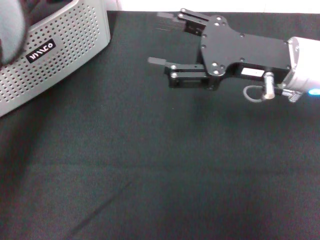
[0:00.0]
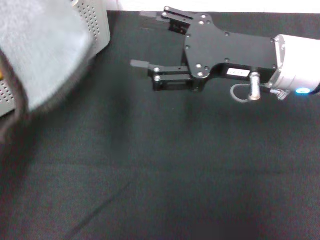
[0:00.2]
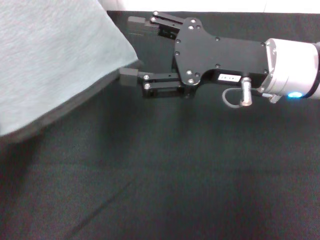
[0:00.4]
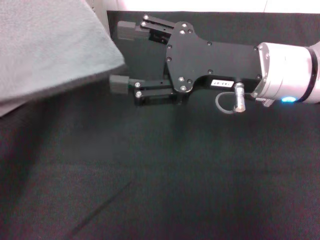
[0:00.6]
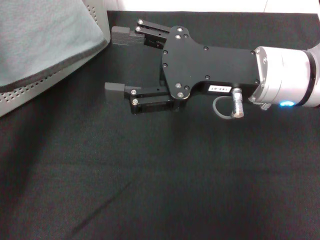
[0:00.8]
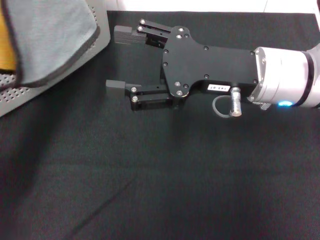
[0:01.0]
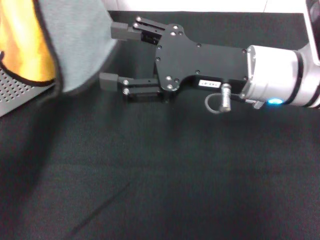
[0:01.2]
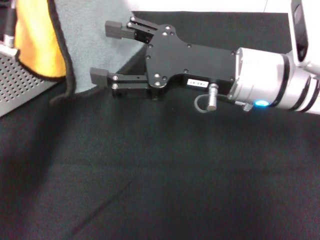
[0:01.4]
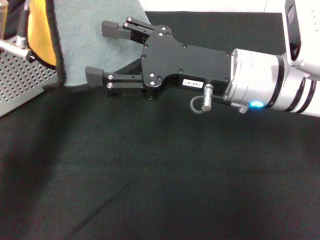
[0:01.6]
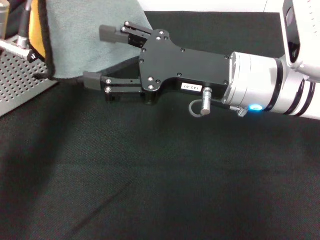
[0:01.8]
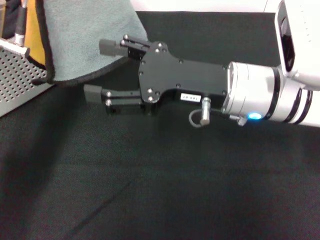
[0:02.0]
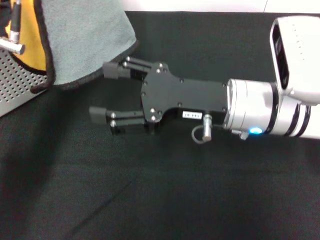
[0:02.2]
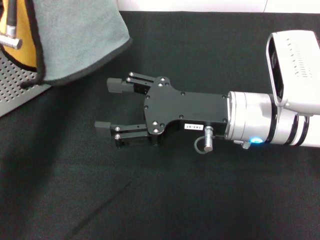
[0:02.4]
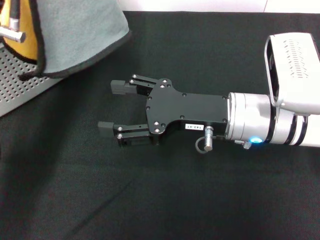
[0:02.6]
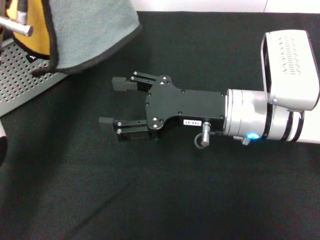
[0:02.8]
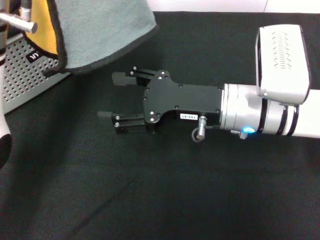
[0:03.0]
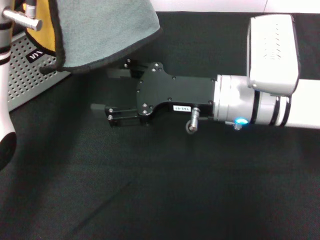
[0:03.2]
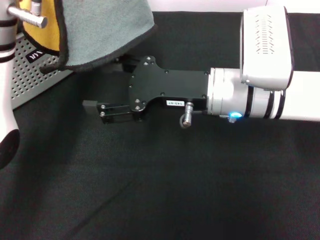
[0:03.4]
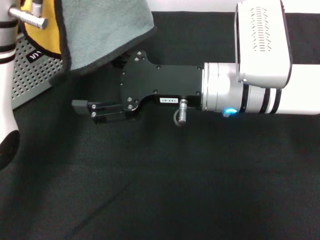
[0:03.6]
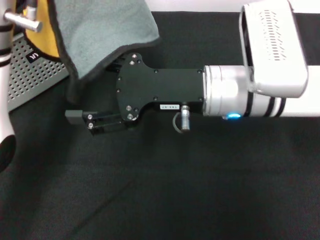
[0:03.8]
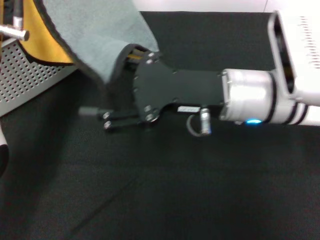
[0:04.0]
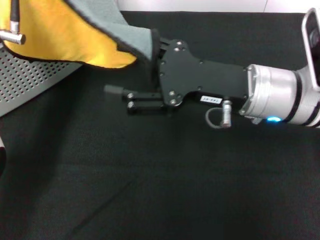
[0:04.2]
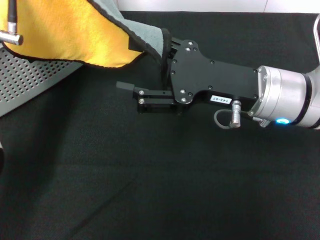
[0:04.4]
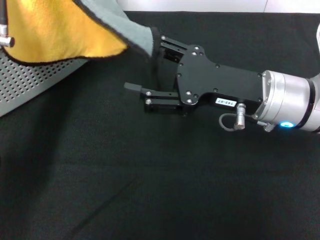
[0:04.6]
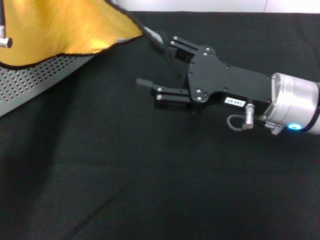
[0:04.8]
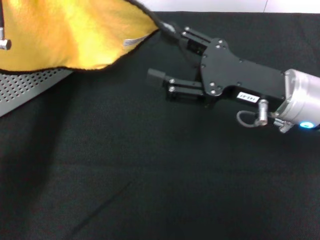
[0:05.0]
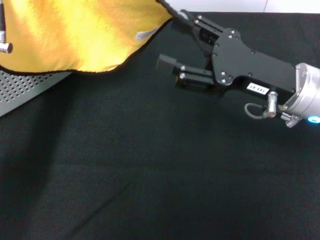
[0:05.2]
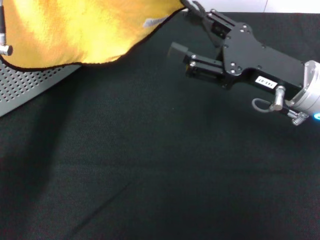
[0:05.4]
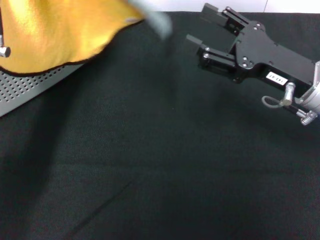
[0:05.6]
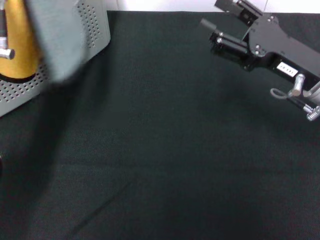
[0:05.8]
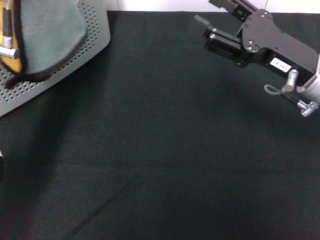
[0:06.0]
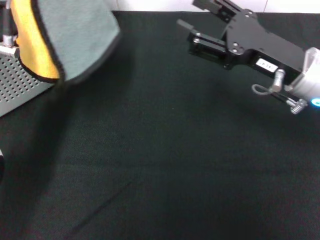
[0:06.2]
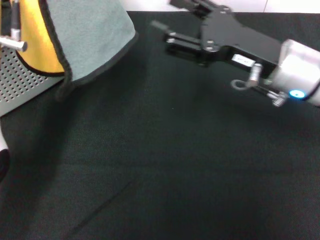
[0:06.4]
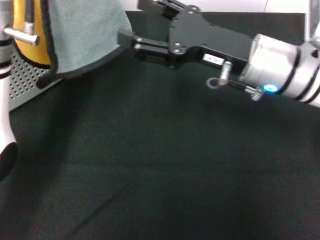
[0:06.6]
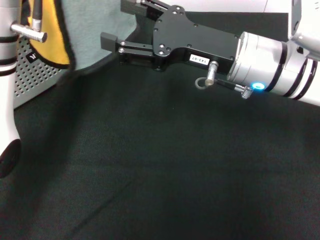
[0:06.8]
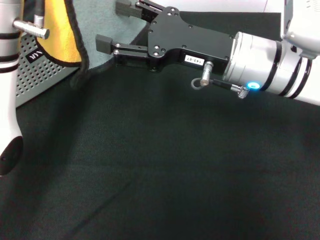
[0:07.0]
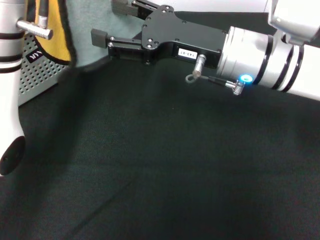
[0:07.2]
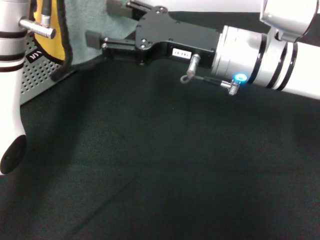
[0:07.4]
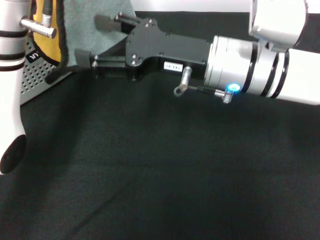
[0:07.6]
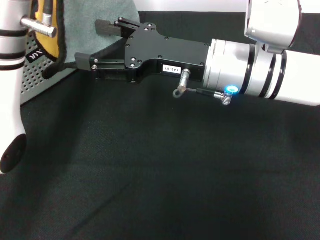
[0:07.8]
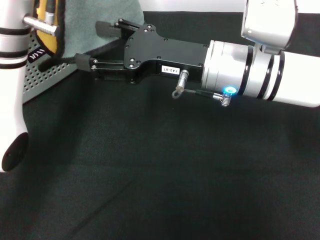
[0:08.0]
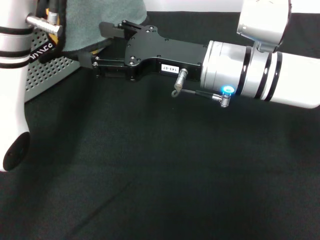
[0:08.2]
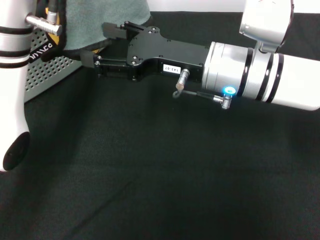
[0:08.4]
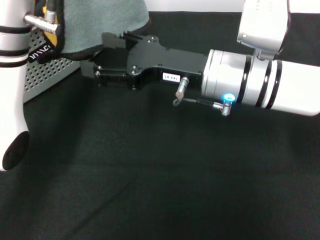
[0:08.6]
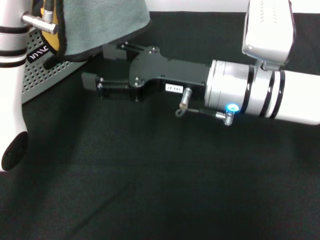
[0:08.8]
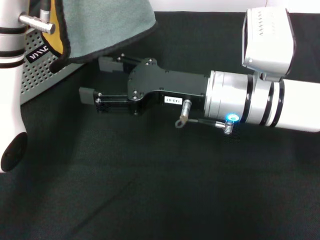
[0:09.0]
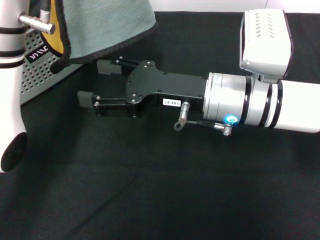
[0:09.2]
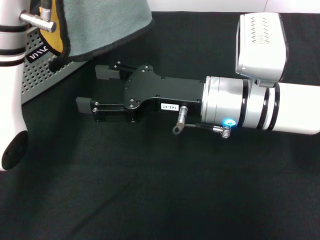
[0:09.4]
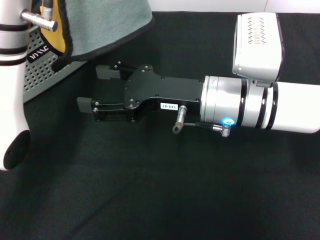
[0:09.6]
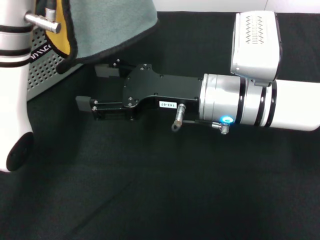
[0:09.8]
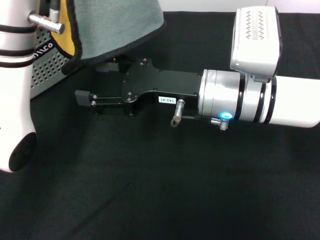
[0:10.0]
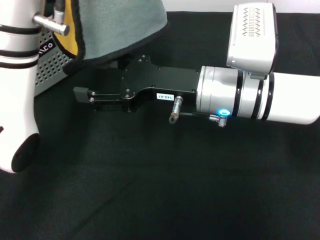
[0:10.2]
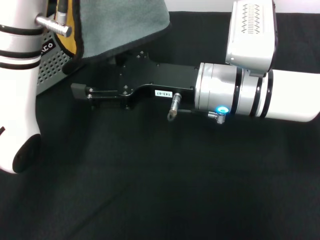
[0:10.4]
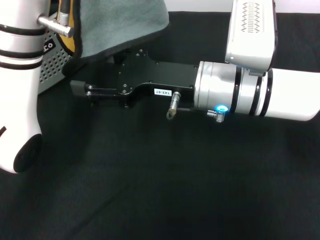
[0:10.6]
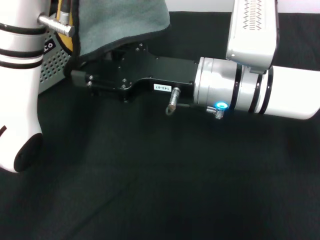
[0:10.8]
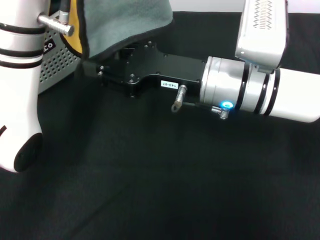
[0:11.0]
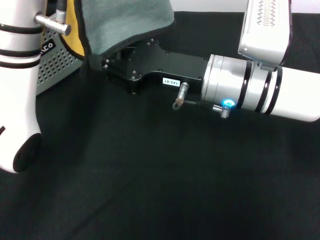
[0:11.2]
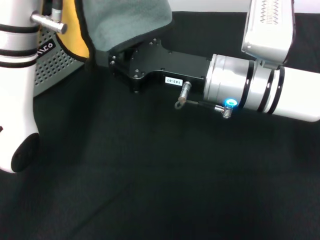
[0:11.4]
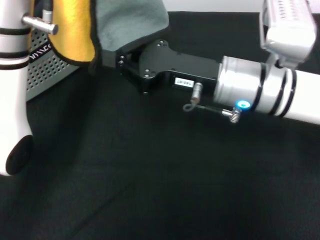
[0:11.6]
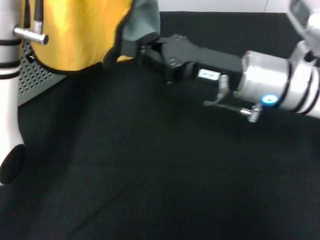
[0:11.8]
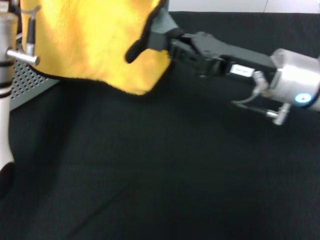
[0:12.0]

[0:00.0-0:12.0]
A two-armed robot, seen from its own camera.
Task of the whole recording: pick up the towel from the storage box and lay it flat on the black tablecloth.
Step, 0:00.0 to 0:11.4: Spread the towel flat with the left gripper.
0:00.0 to 0:01.6: The right gripper moves to the left, some 5 cm. The left gripper goes approximately 5 cm downward.
0:04.4 to 0:06.0: The right gripper travels to the right by about 5 cm.
0:06.0 to 0:07.6: The right gripper travels to the left by roughly 10 cm.
0:10.4 to 0:12.0: The left gripper changes place by about 5 cm. Meanwhile the right gripper goes some 10 cm to the right, and closes.

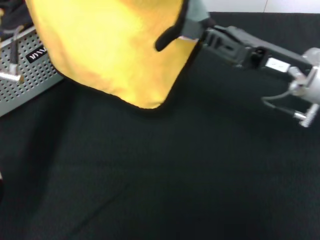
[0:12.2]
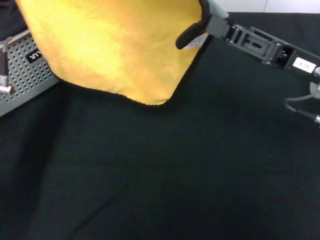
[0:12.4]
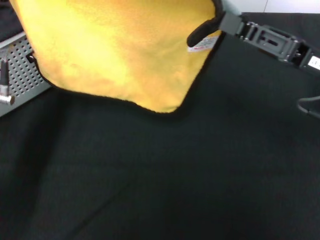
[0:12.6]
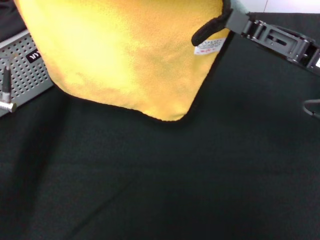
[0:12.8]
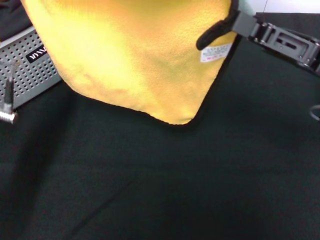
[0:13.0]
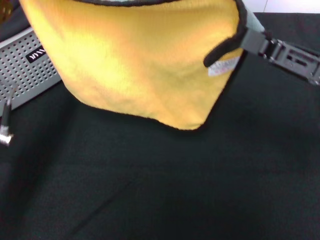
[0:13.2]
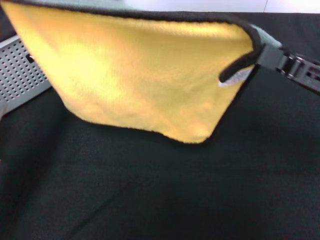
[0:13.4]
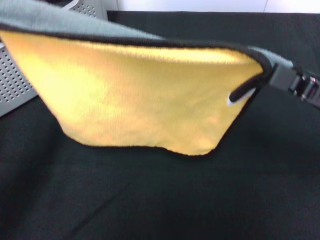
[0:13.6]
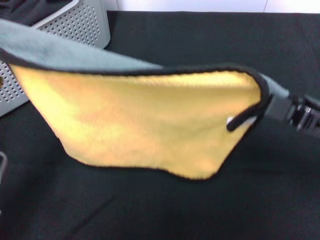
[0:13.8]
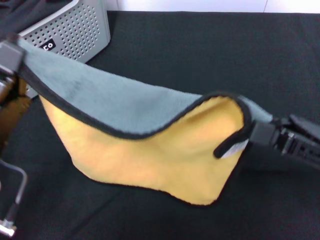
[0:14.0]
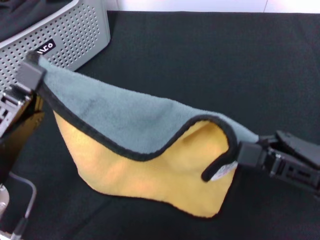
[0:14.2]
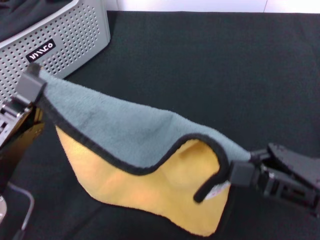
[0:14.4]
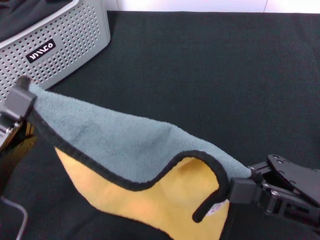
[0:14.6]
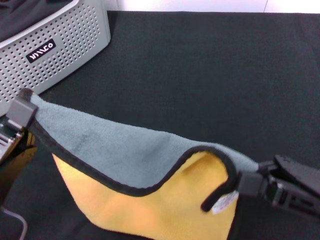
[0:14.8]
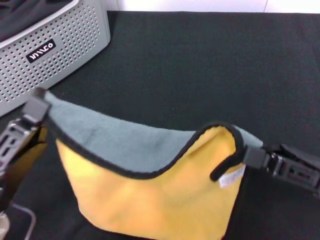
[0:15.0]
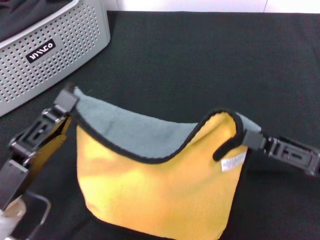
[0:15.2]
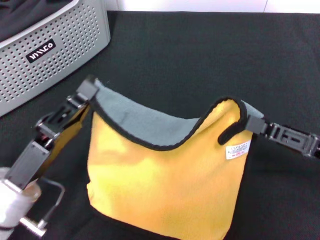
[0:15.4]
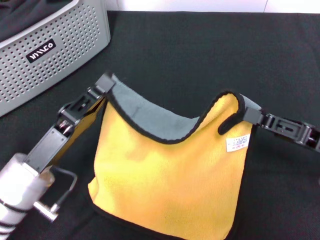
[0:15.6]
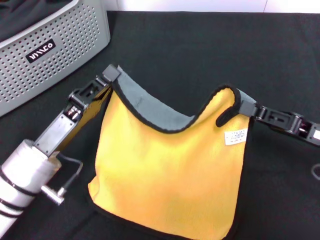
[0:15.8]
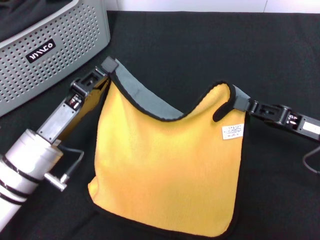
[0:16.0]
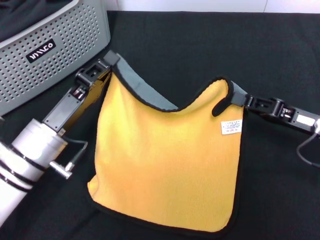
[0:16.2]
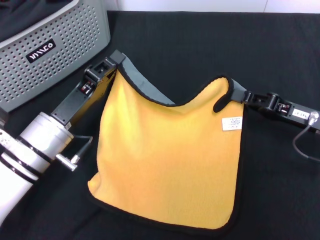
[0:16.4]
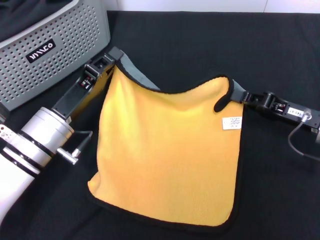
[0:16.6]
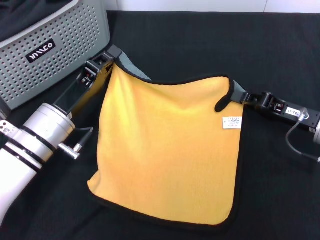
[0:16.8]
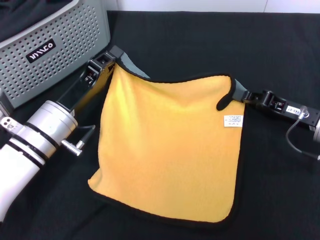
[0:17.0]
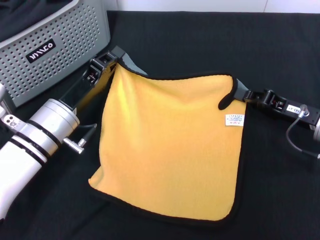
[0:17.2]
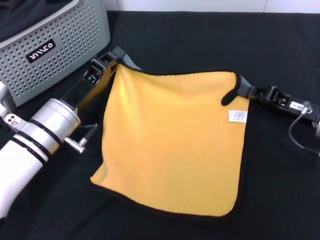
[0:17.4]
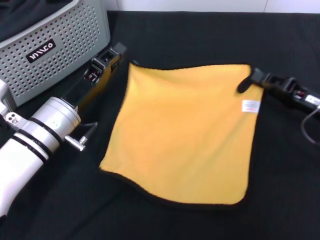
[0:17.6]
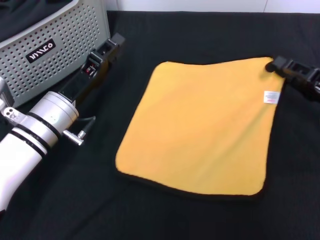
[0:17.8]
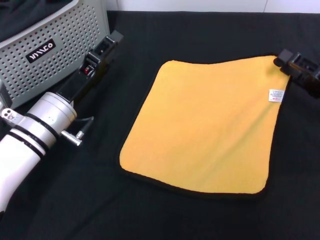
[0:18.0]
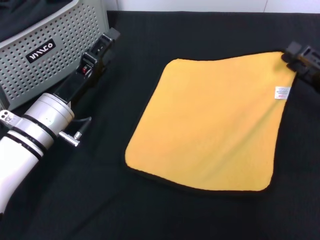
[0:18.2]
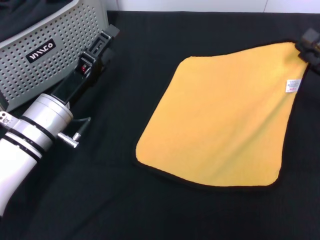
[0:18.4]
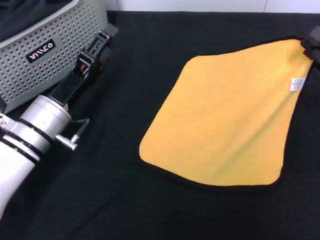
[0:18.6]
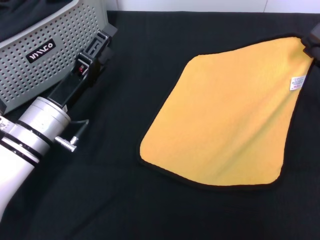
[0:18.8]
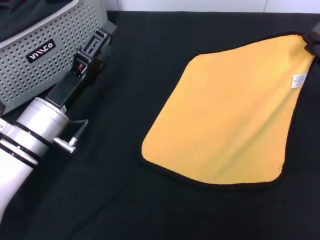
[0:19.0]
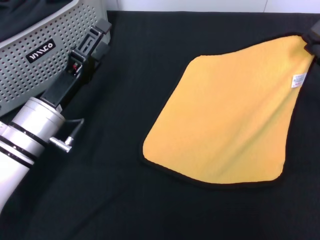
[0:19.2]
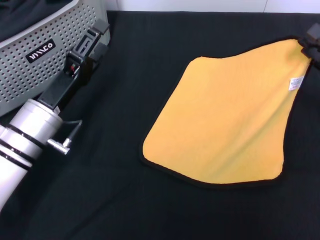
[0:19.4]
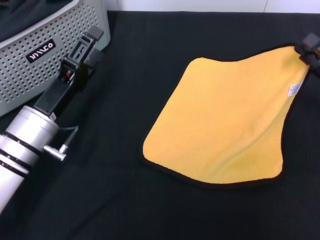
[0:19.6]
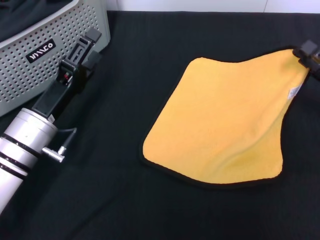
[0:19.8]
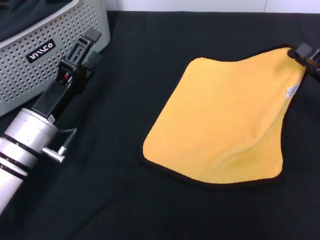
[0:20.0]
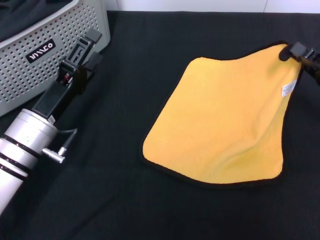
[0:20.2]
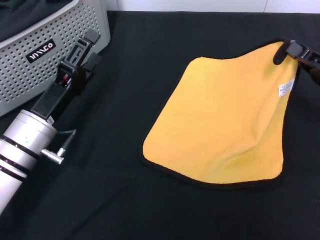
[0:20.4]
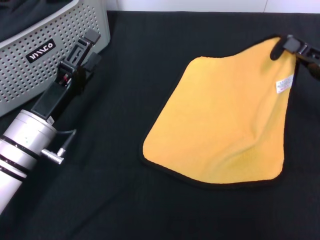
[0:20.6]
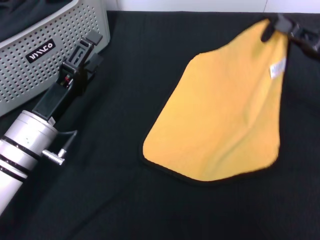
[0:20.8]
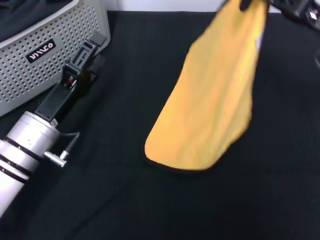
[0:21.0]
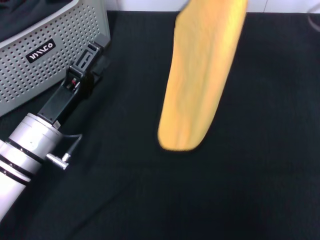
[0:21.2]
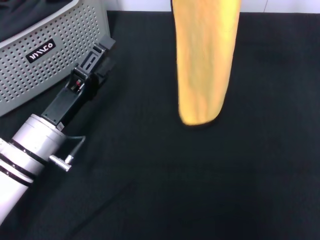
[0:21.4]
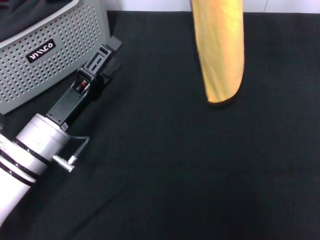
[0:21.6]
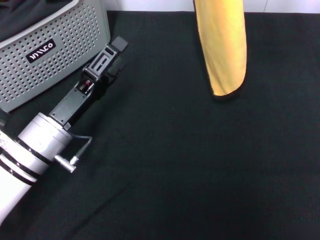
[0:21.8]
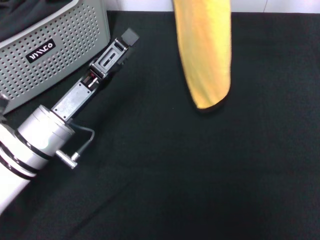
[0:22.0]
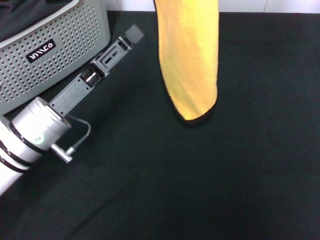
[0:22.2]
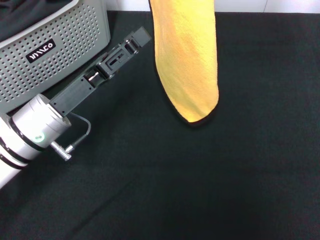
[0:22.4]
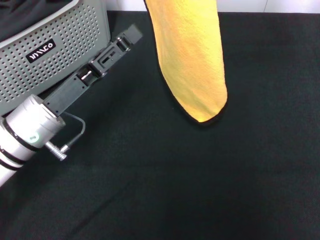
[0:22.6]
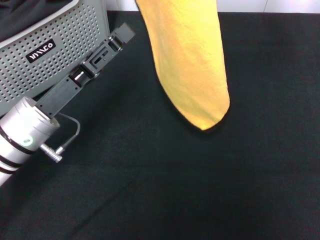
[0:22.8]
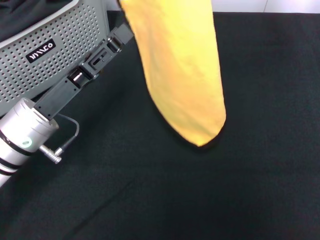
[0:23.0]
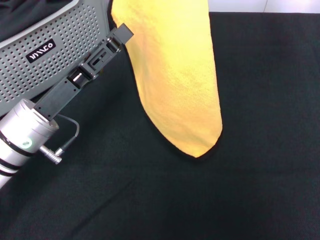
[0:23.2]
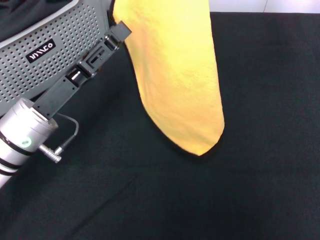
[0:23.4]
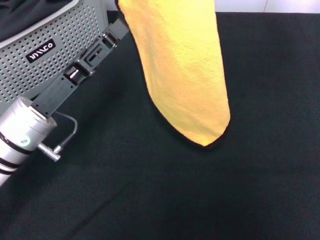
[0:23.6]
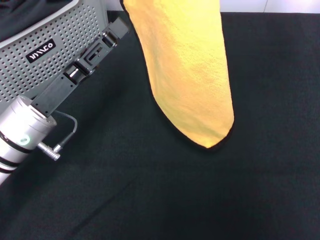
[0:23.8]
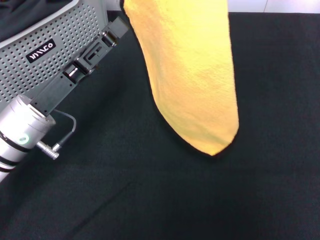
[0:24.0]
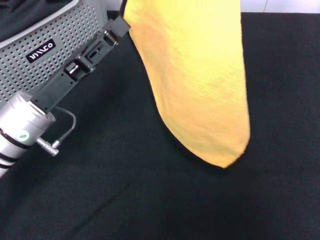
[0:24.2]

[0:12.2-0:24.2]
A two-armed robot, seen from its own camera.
Task of the whole recording: pick up the towel from the storage box and lay it flat on the black tablecloth.
0:12.2 to 0:13.8: The left gripper is displaced backward and downward by some 15 cm. The right gripper travels backward and to the right by roughly 10 cm.
0:13.8 to 0:15.2: The right gripper moves downward, some 5 cm; the left gripper changes place by roughly 5 cm.
0:15.2 to 0:16.6: The grippers both shift forward by approximately 10 cm.
0:16.6 to 0:18.2: The left gripper opens. Meanwhile the right gripper heads to the right, covering approximately 5 cm, and opens its fingers.
0:18.2 to 0:19.8: The left gripper opens up.
0:19.8 to 0:21.2: The right gripper is displaced upward, forward and to the left by some 20 cm, and closes up.
0:21.2 to 0:22.6: The right gripper moves upward and to the left, some 15 cm.
0:22.6 to 0:24.2: The right gripper ends up approximately 5 cm from where it was.
